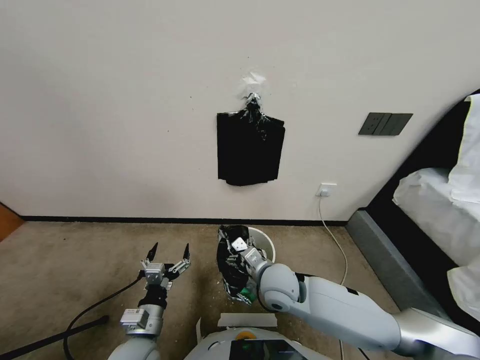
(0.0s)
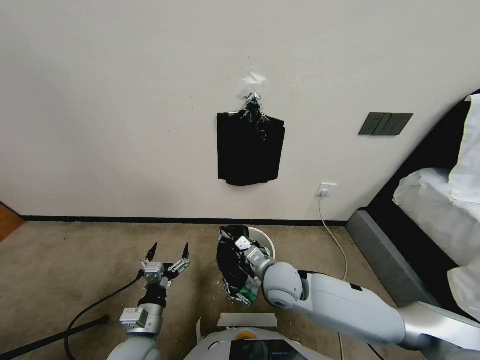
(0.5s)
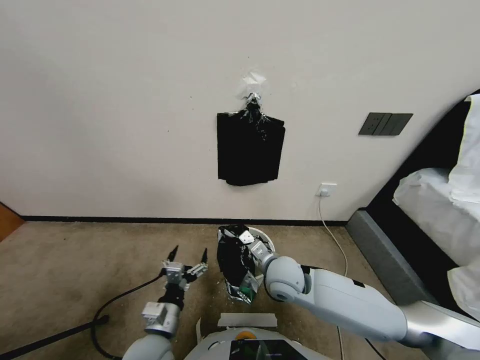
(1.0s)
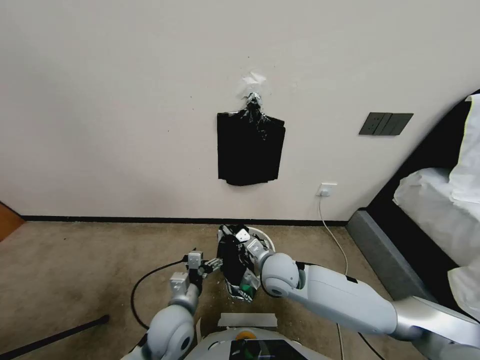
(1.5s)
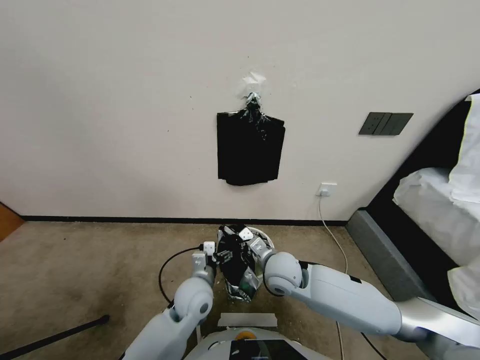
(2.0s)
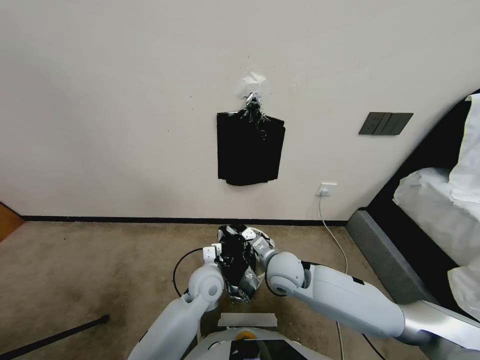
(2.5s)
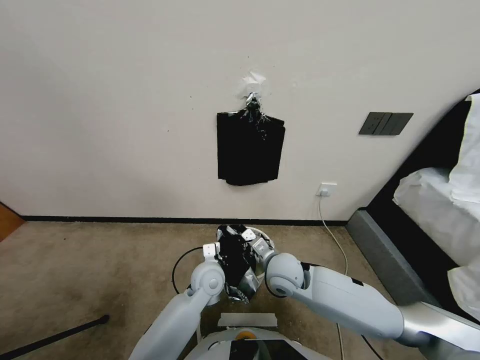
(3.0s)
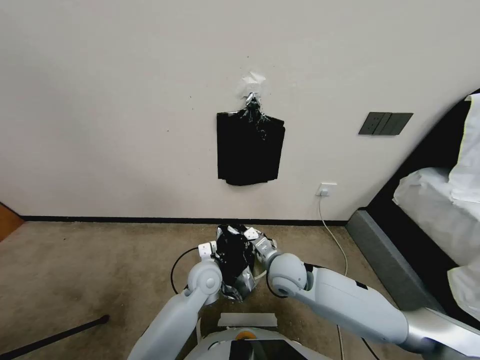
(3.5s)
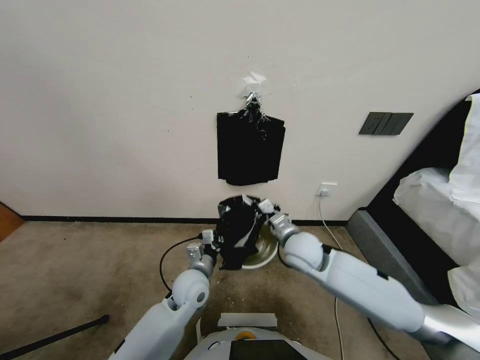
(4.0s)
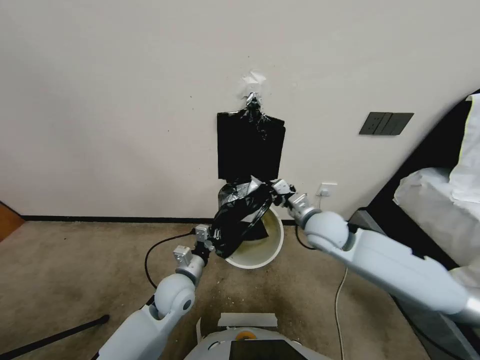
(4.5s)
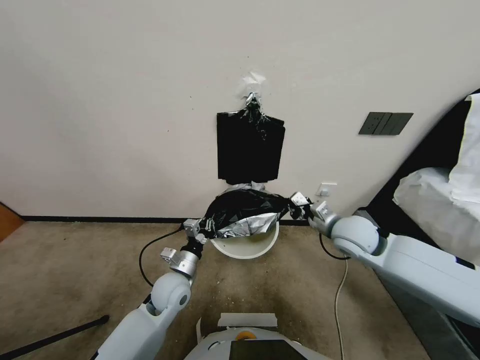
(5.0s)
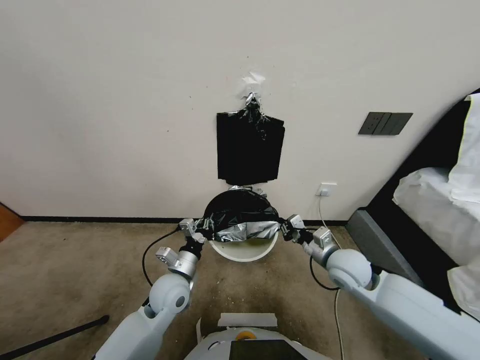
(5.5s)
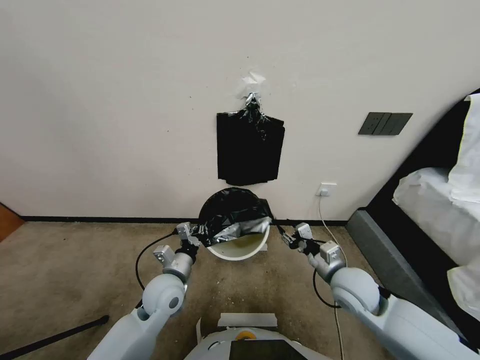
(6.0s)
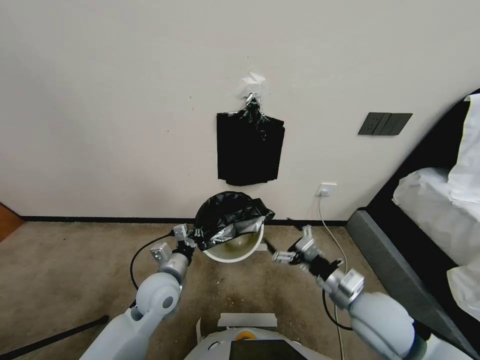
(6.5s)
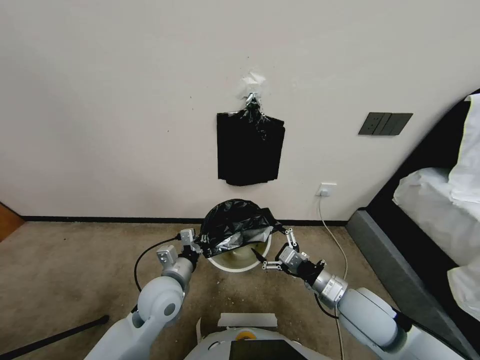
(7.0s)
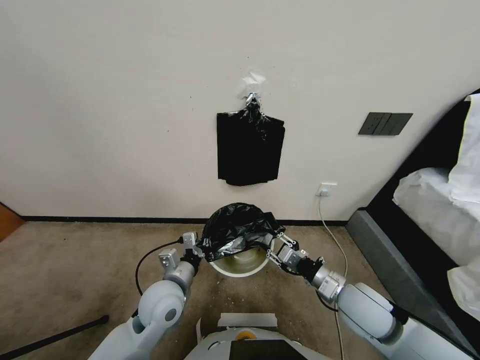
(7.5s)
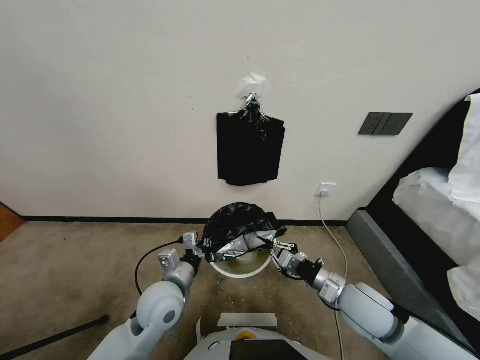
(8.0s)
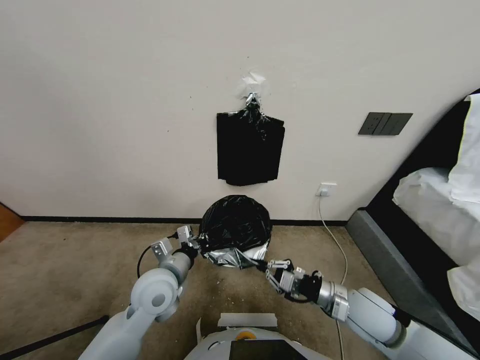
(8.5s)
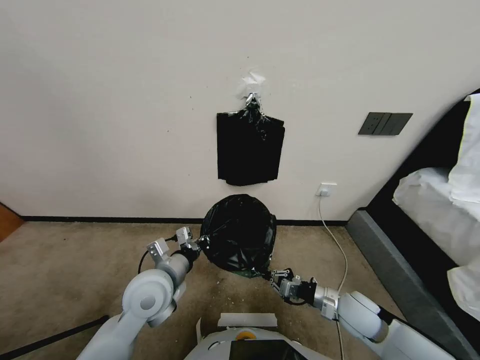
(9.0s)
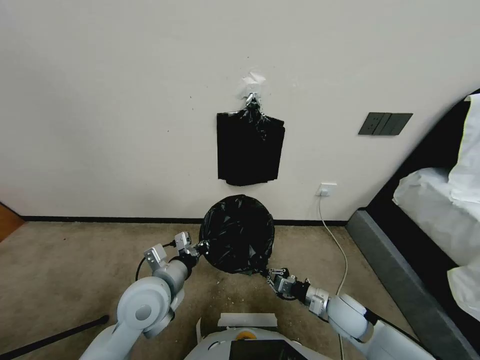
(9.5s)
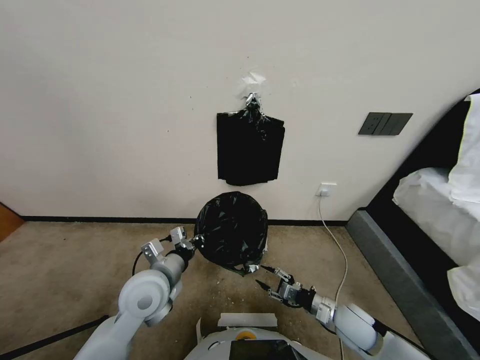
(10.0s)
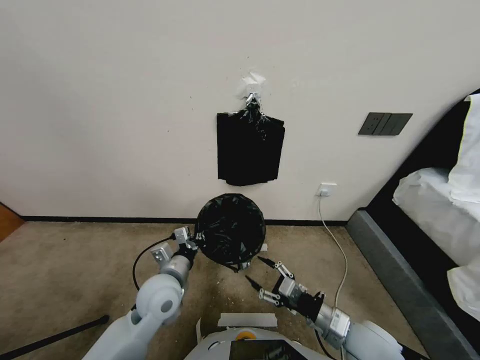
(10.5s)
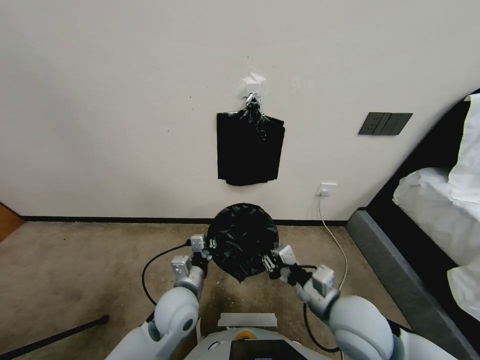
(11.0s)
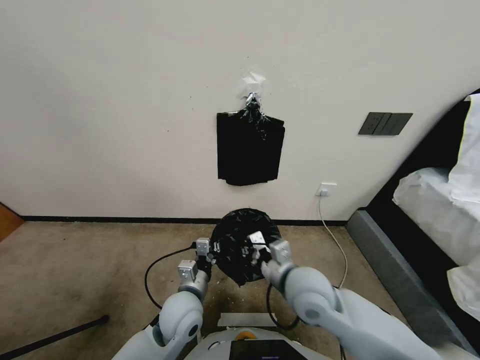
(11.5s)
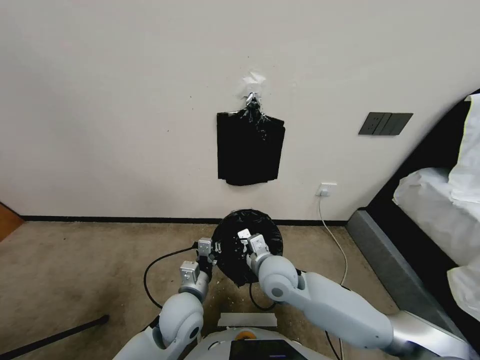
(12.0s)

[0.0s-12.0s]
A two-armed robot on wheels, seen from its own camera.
Task of the whole recording: Place a trash bag onto the trash bin.
0.0s to 2.0s: The left gripper heads forward and to the right, covering some 20 cm; the right gripper closes its fingers.
2.0s to 4.0s: The right gripper heads to the right and upward, covering about 10 cm. Meanwhile the left gripper closes its fingers.
4.0s to 6.0s: The left gripper goes roughly 5 cm to the left. The right gripper travels to the right, backward and downward by roughly 15 cm, and opens its fingers.
6.0s to 8.0s: The right gripper closes.
8.0s to 10.0s: The right gripper shifts about 10 cm downward, and opens its fingers.
10.0s to 12.0s: The right gripper shifts approximately 25 cm to the left, upward and forward, and closes, while the left gripper moves to the right and downward, roughly 10 cm.

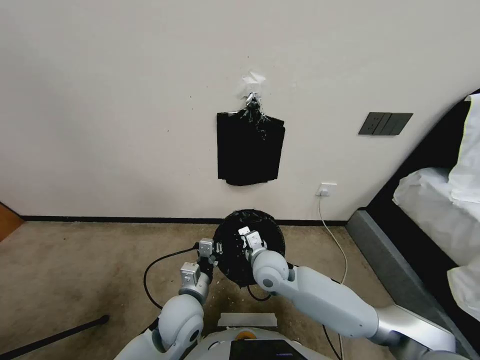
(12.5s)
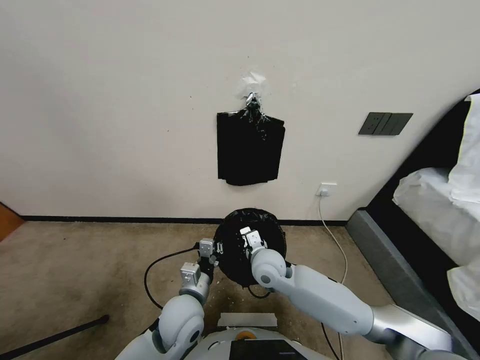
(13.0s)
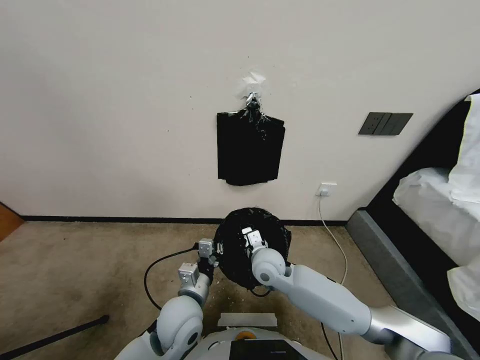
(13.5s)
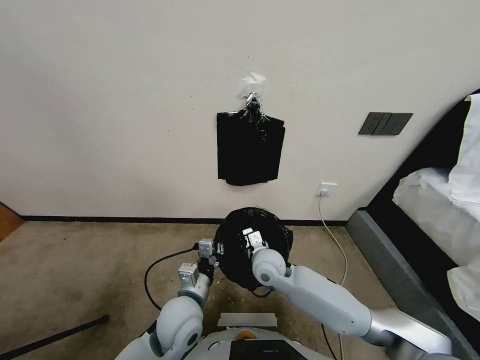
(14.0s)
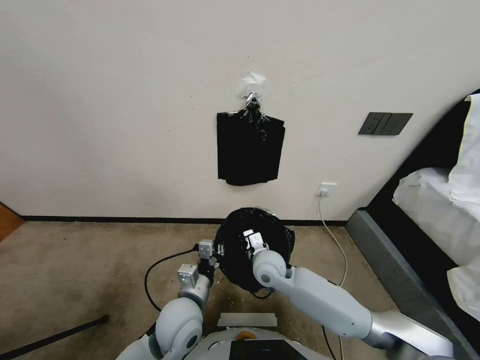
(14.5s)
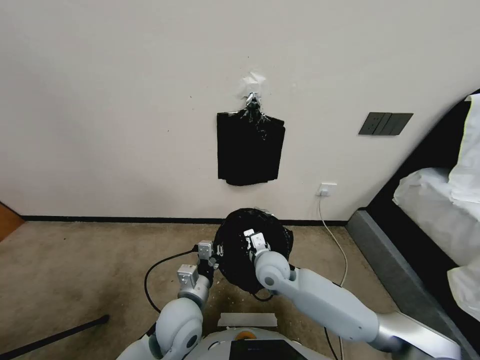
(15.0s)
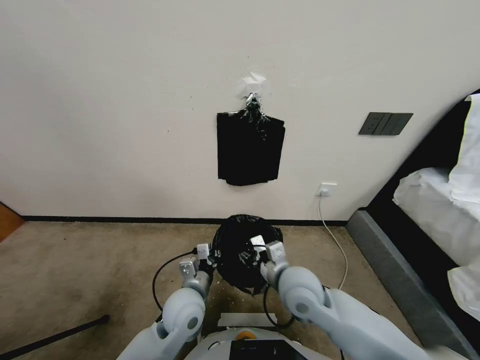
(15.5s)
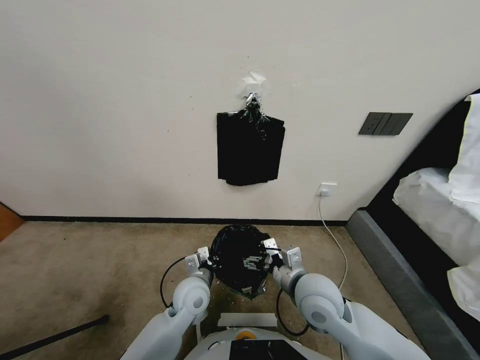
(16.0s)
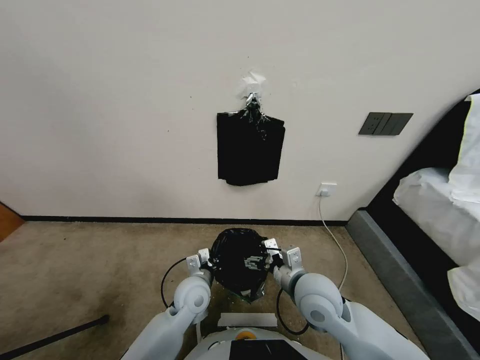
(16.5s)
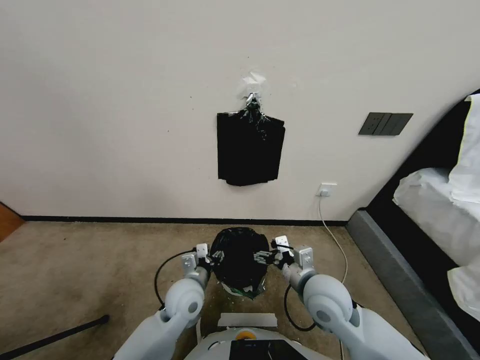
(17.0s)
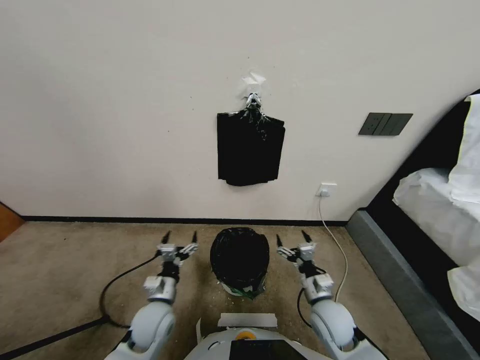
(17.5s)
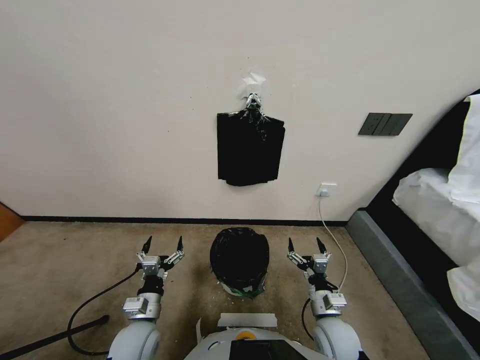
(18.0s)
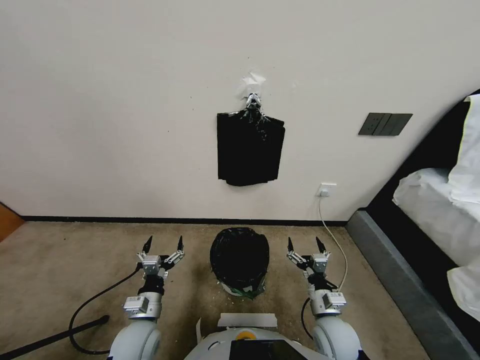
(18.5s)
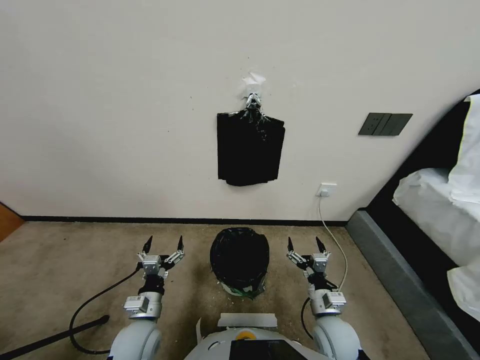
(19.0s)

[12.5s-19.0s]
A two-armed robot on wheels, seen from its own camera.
Task of the whole recording: Place a trash bag onto the trash bin.
12.5s to 14.5s: There are only small adjustments of the grippers.
14.5s to 17.0s: The right gripper travels to the right and backward by about 15 cm, and opens up, while the left gripper changes place by some 5 cm, and opens.
17.0s to 19.0s: The right gripper shifts roughly 10 cm downward and backward, while the left gripper moves to the left and backward, roughly 10 cm.
